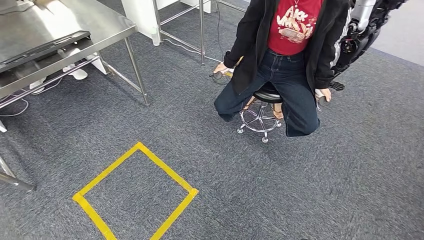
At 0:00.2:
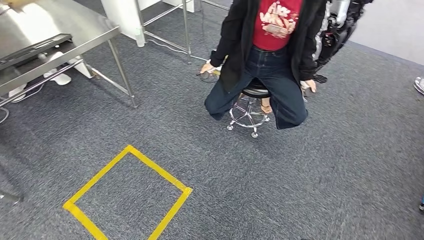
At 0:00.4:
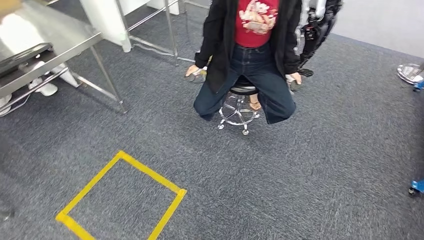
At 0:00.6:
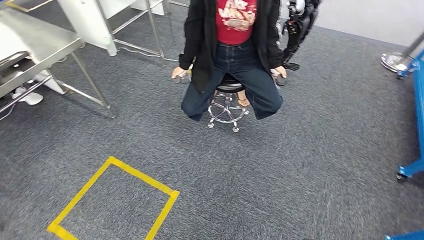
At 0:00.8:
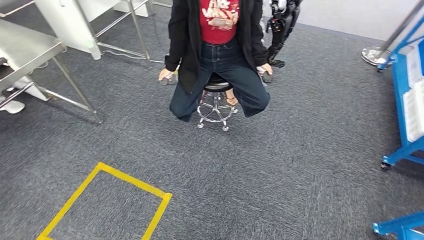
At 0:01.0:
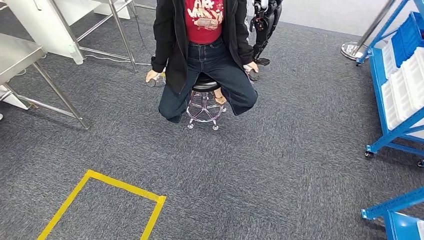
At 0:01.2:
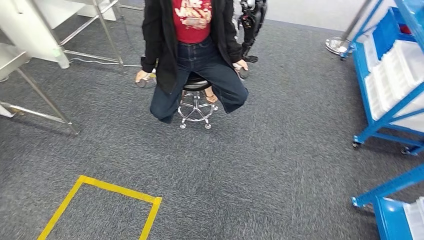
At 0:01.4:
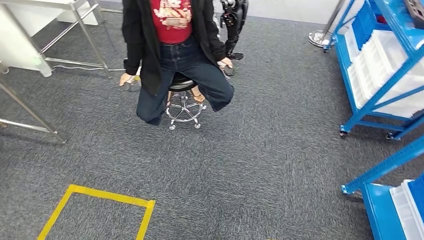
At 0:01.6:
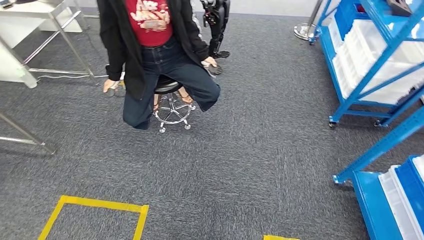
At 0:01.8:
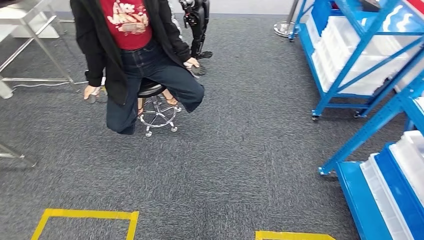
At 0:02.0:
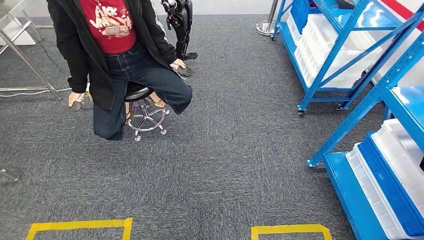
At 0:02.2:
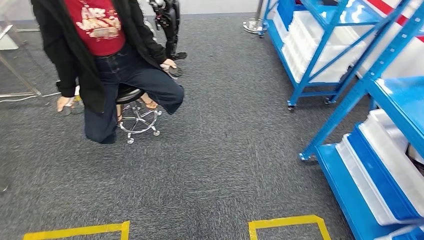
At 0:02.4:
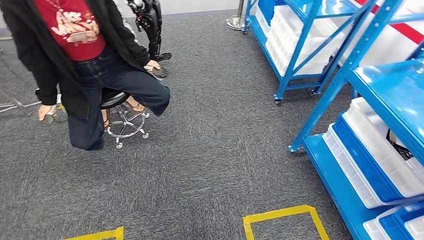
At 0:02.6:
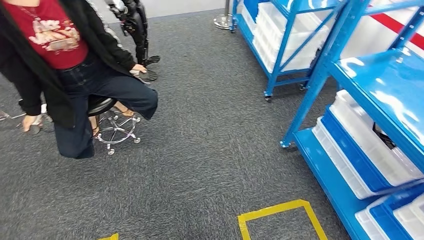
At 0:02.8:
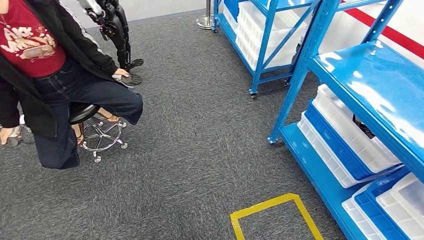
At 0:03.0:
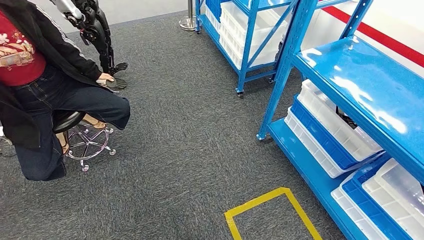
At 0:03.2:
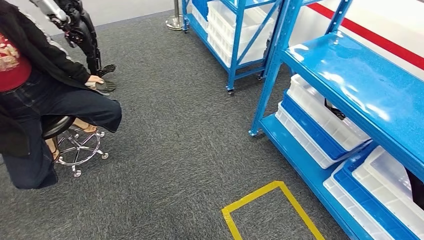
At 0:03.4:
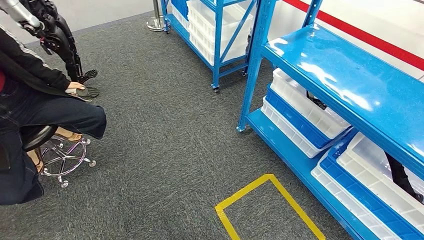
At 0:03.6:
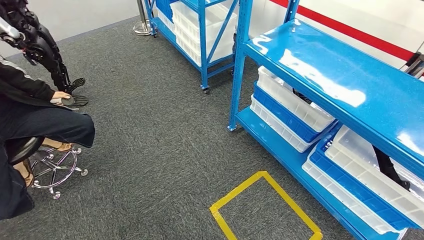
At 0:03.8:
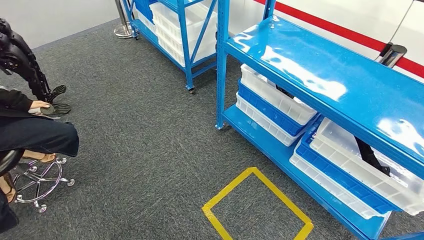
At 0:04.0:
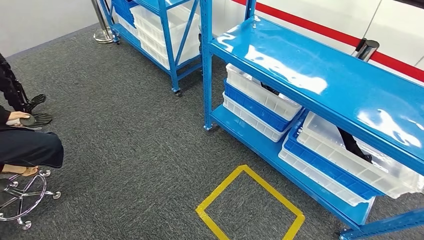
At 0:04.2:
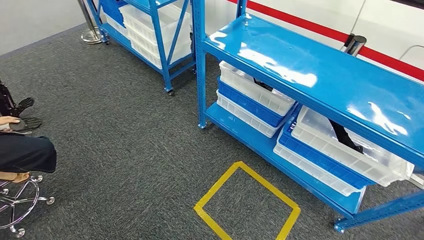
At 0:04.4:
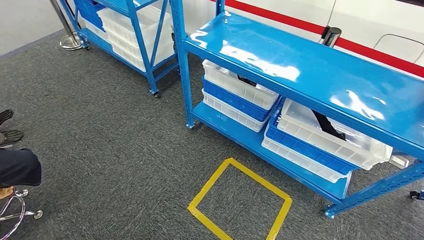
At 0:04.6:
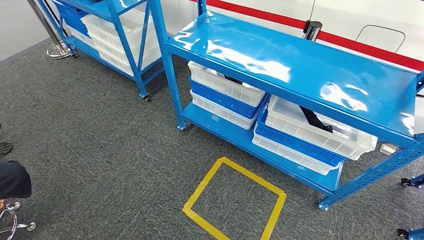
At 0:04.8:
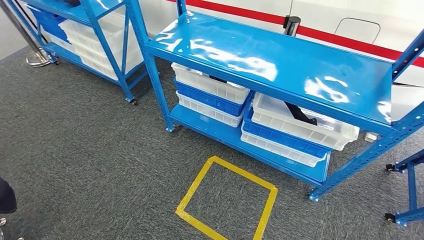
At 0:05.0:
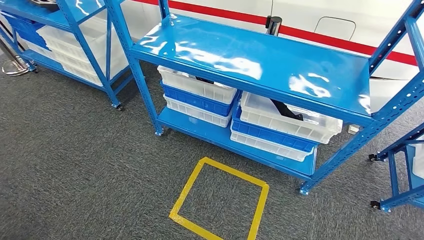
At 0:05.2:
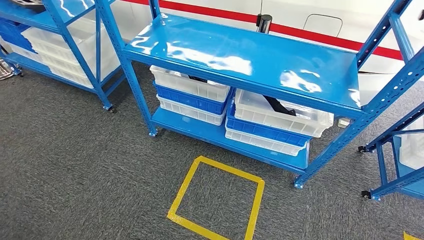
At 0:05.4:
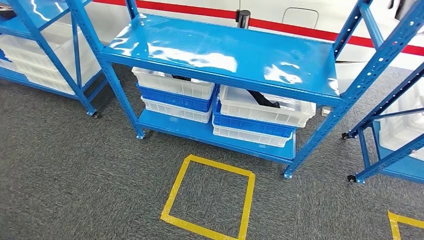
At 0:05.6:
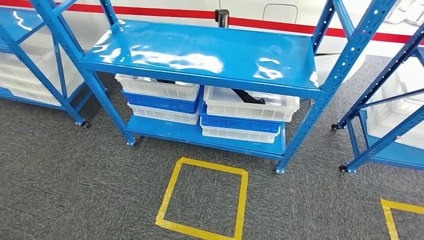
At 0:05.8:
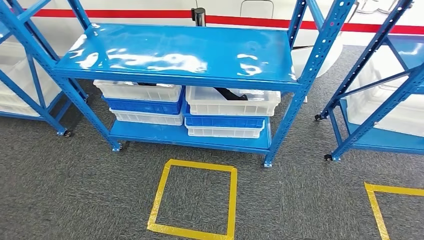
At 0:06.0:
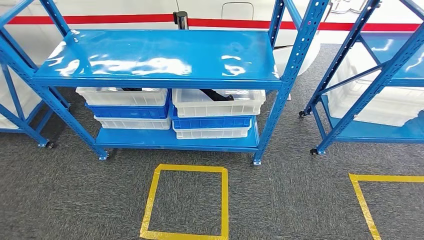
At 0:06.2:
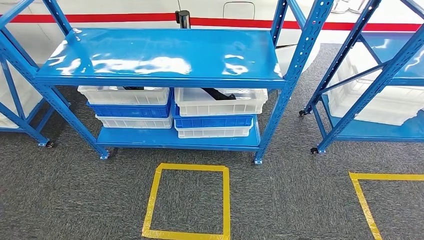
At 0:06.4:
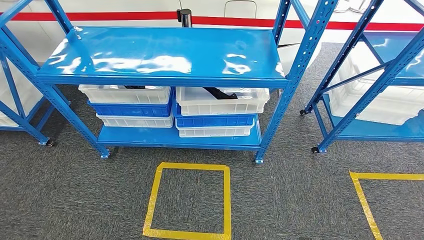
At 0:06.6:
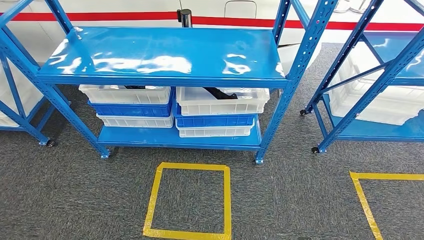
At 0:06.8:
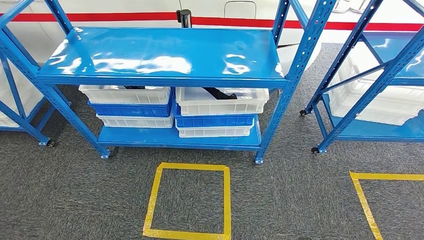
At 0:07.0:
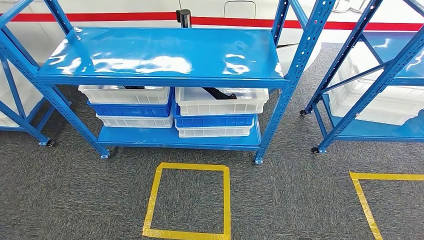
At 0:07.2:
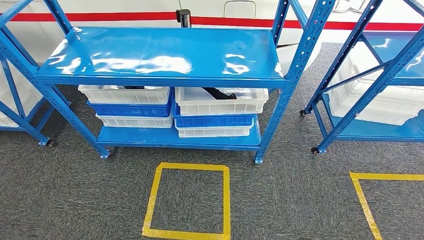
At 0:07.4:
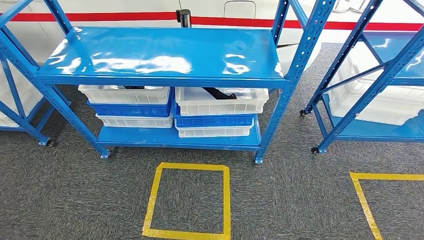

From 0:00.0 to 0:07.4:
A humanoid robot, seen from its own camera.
Step, from 0:00.0 to 0:07.4: Move to the initial position of the shelf.
From 0:06.0 to 0:07.4: Both hands stay put.
